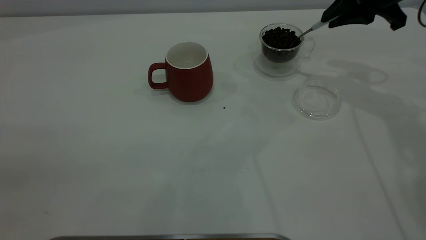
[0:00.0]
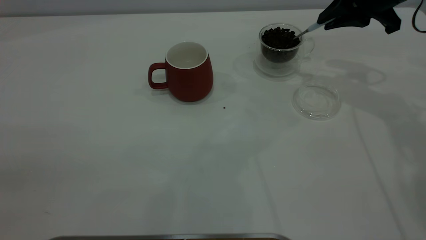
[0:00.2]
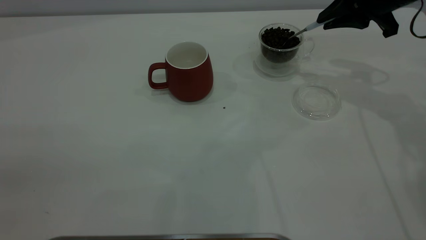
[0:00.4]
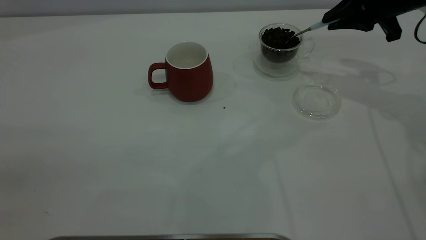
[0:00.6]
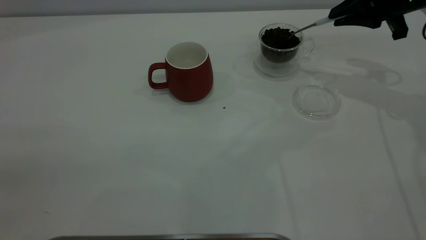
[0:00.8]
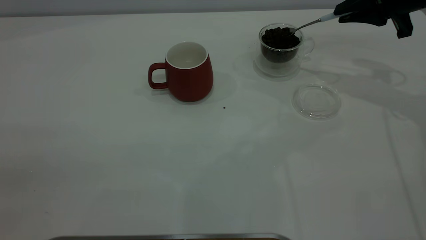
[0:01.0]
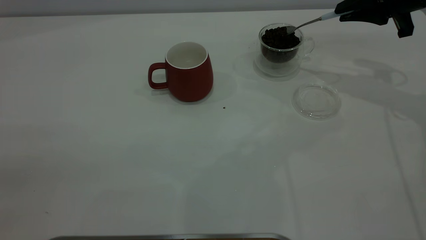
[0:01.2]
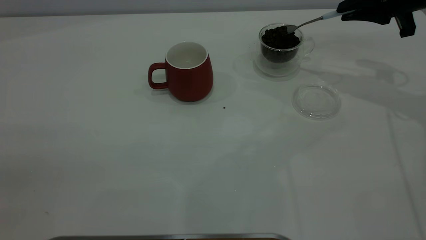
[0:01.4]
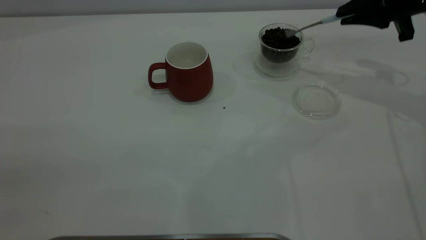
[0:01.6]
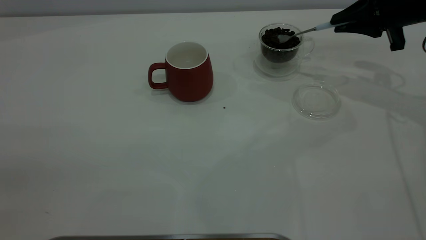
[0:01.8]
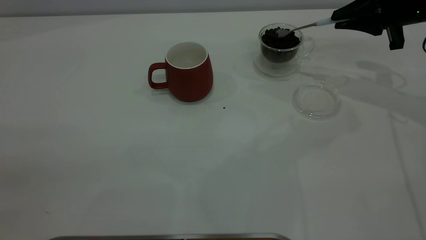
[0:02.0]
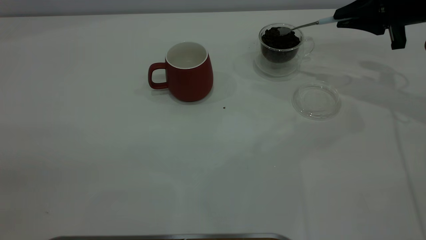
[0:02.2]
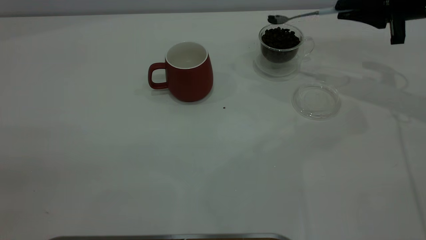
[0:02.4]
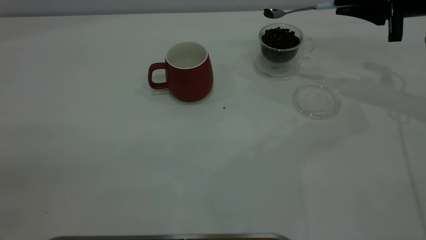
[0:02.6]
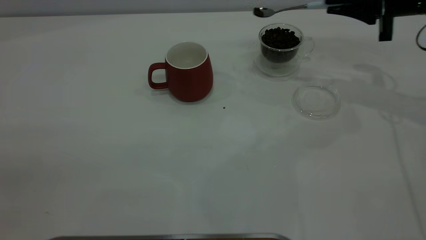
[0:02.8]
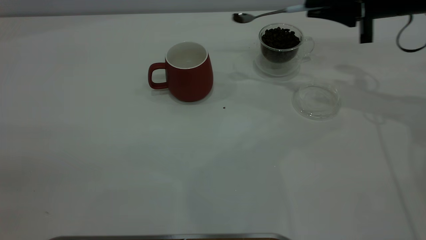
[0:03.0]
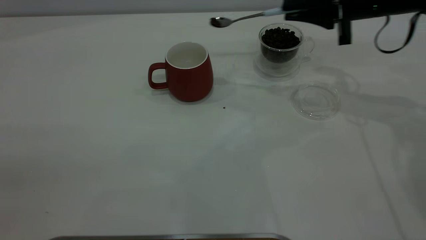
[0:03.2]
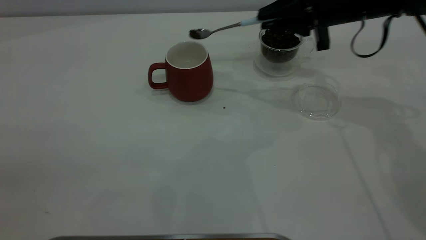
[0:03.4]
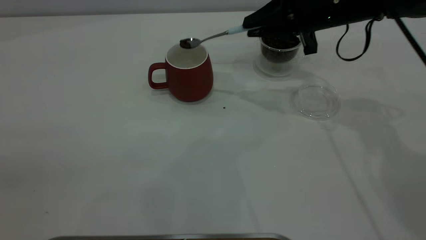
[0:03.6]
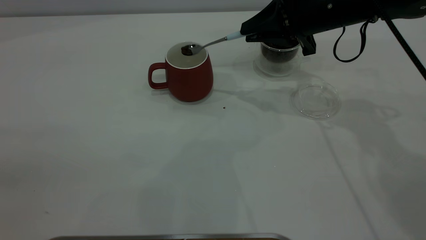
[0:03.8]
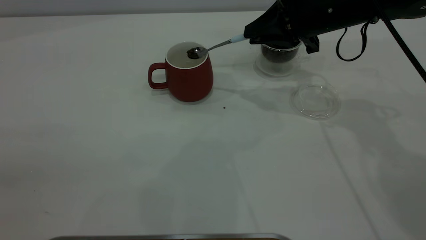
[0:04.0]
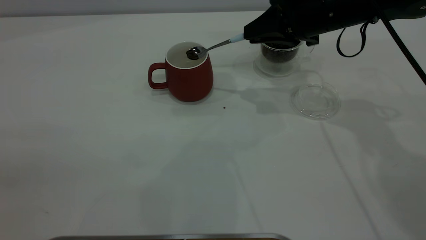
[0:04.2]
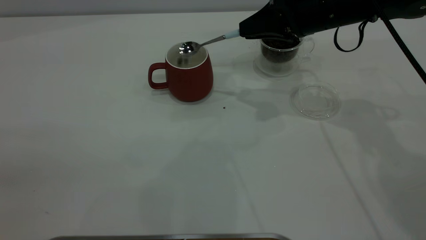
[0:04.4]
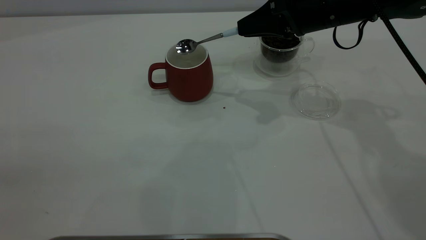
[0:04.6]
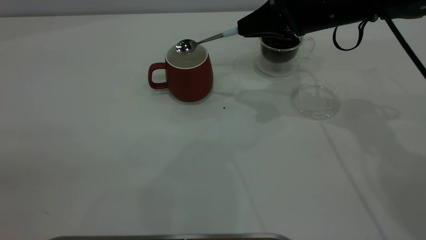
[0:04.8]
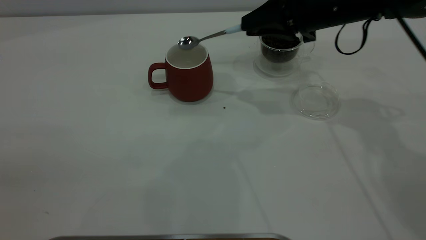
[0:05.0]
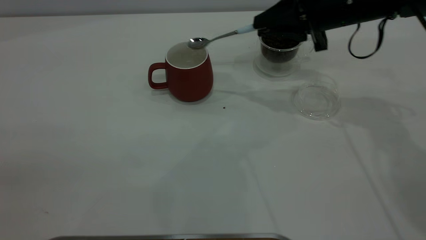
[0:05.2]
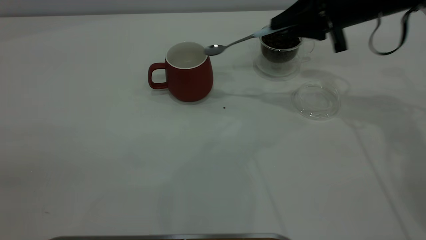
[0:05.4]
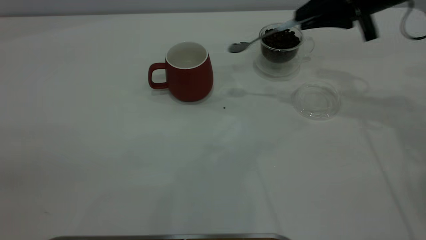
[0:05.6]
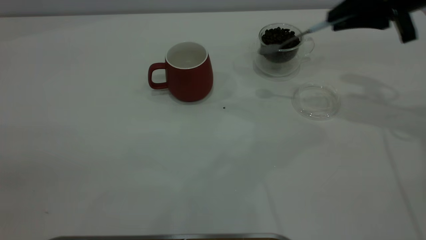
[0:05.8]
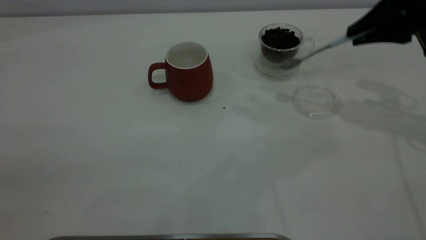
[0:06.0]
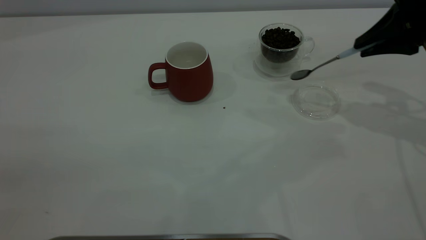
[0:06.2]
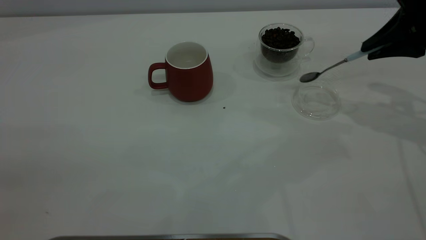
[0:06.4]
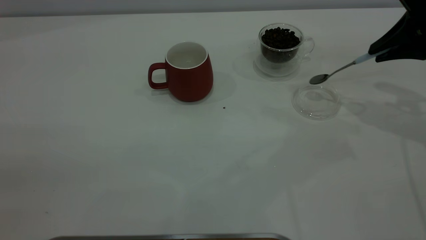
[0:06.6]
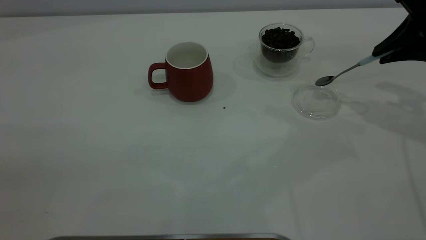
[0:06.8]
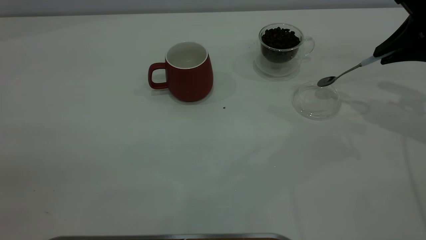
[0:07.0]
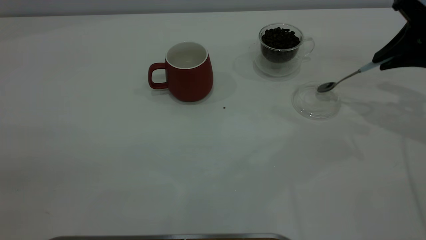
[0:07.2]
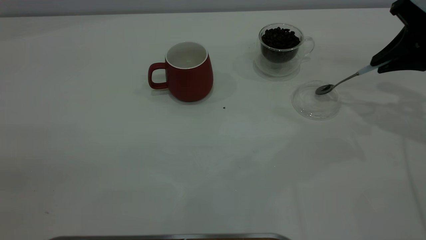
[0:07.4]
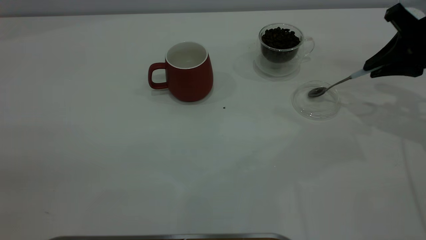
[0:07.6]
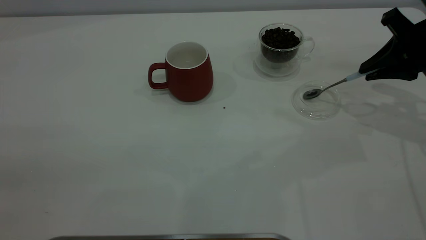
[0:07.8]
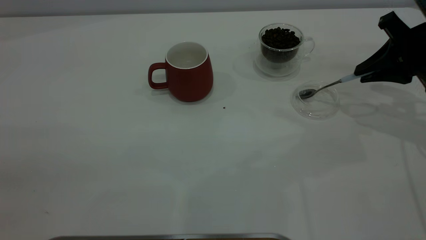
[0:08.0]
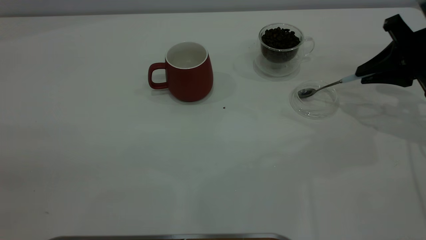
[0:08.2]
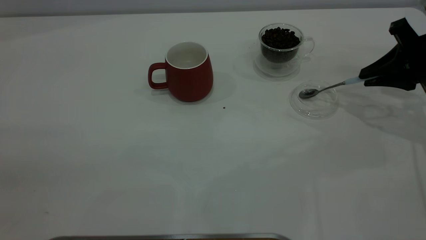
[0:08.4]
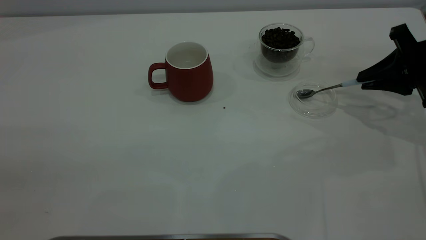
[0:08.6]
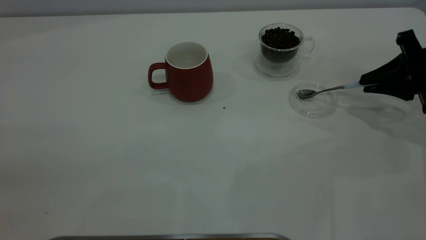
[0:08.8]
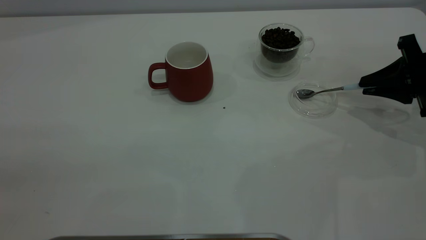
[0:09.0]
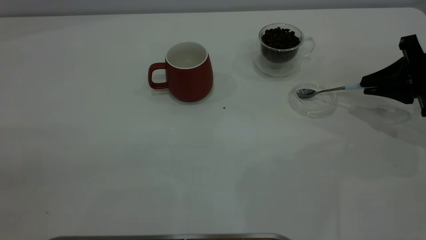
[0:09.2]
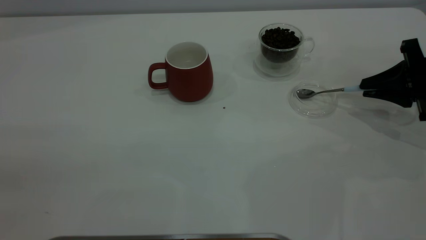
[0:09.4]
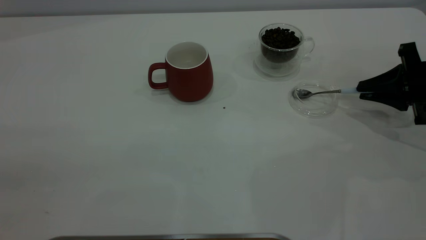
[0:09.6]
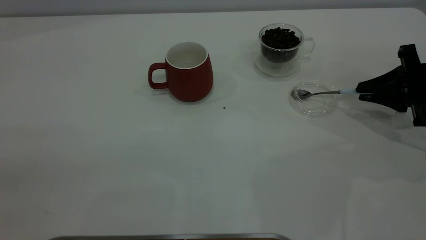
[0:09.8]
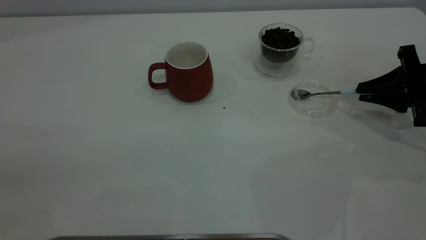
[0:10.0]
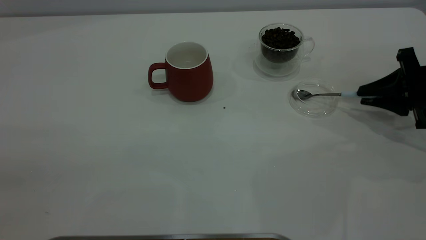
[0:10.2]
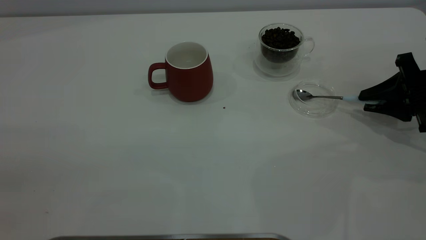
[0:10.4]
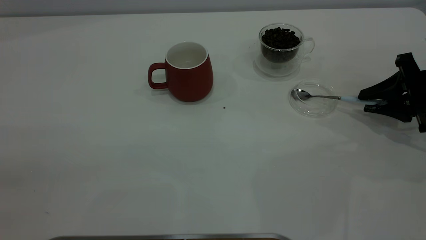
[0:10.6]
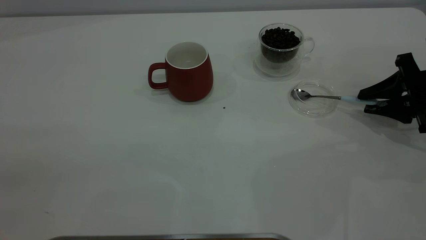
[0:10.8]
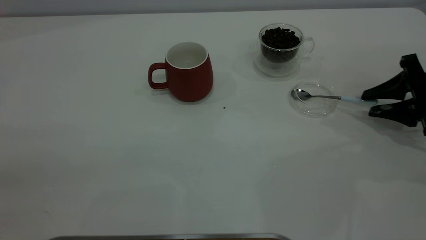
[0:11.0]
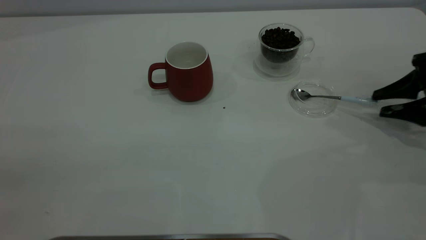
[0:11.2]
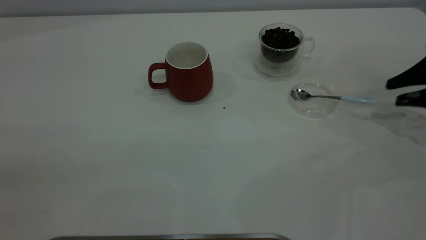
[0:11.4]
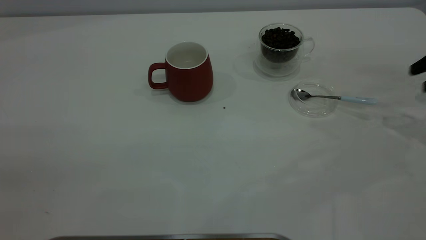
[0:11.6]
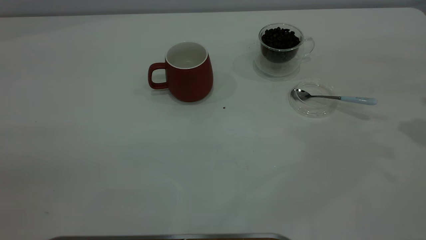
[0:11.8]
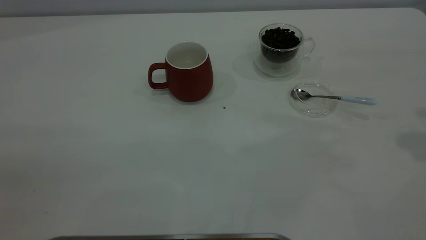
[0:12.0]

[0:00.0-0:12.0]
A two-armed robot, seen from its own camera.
Task of the whole recording: the left gripper place the red cup in the center of the table, the right gripper take the blue spoon from the cup lid and scoop out the coffee beans from the coffee cup and put them into the red cup, the right gripper put the spoon back into the cup lid.
Step, 0:00.0 to 0:05.0: Scoop a spoonful of beans into the cup.
Step, 0:05.2 to 0:11.2: Place the spoon back in its original place.
0:00.0 to 0:01.6: The right gripper travels to the right by about 5 cm.
0:01.6 to 0:03.0: There are only small adjustments of the grippers.
0:03.0 to 0:04.4: The right gripper shifts about 10 cm to the left.
0:04.4 to 0:06.0: The right gripper moves to the right and backward, about 15 cm.
0:06.0 to 0:07.6: The right gripper ends up roughly 5 cm from where it was.
0:07.6 to 0:09.0: The right gripper moves downward, roughly 5 cm.
0:09.0 to 0:10.4: The grippers make only small movements.
0:10.4 to 0:12.0: The right gripper travels upward by roughly 30 cm.

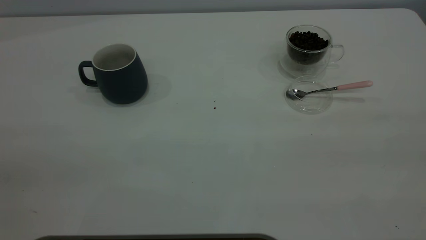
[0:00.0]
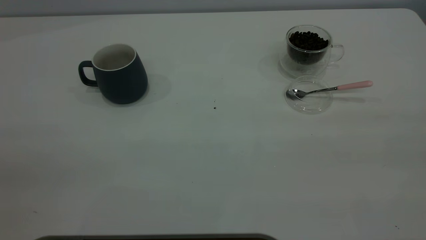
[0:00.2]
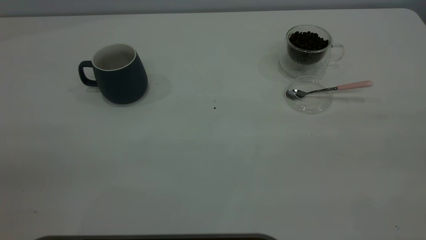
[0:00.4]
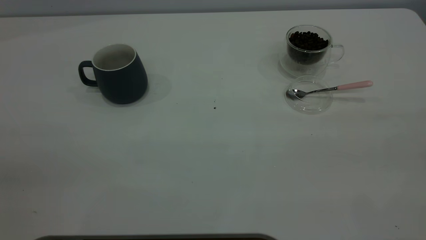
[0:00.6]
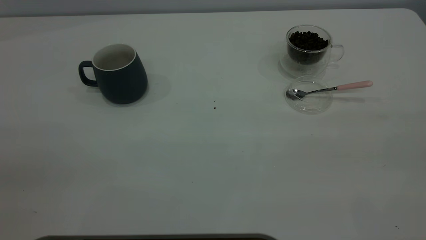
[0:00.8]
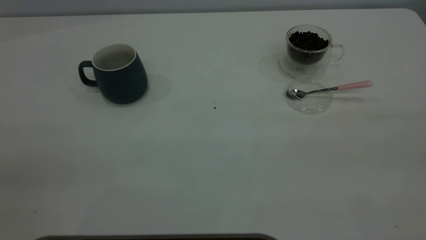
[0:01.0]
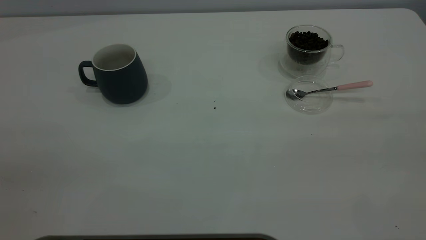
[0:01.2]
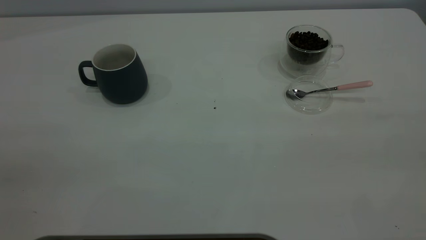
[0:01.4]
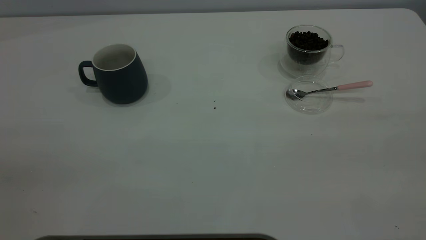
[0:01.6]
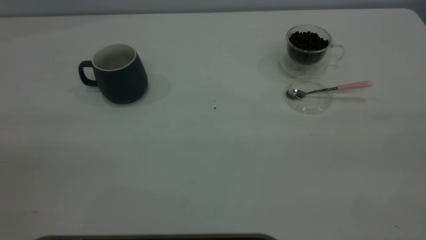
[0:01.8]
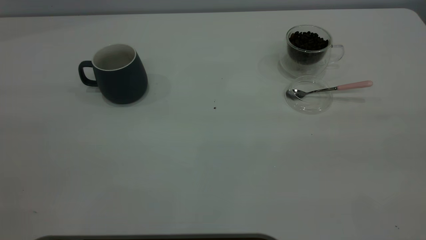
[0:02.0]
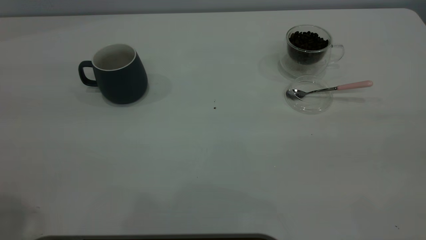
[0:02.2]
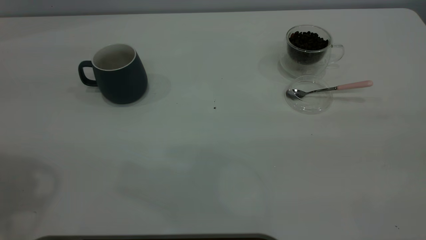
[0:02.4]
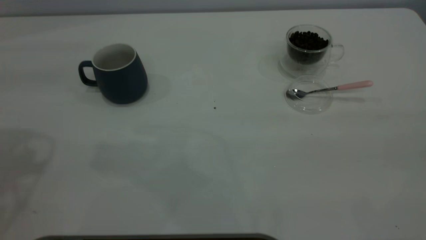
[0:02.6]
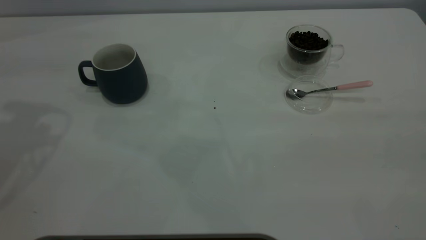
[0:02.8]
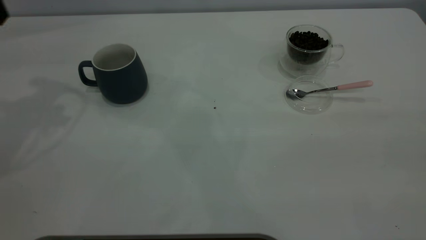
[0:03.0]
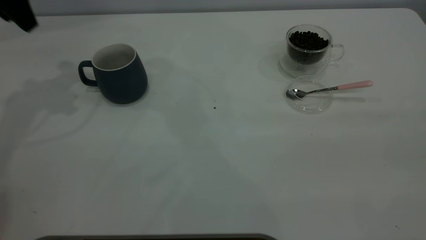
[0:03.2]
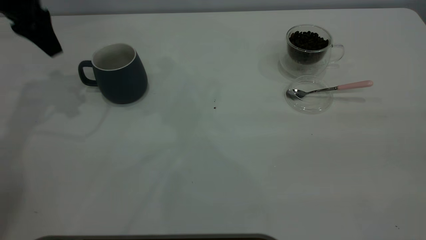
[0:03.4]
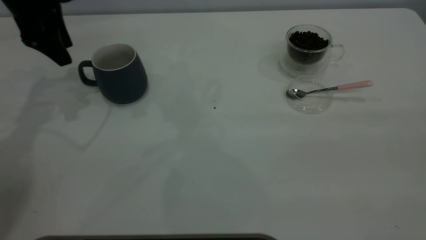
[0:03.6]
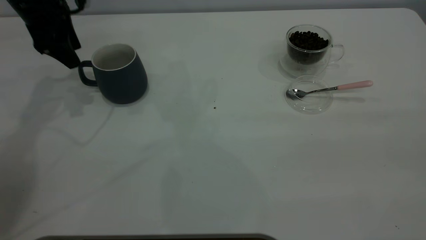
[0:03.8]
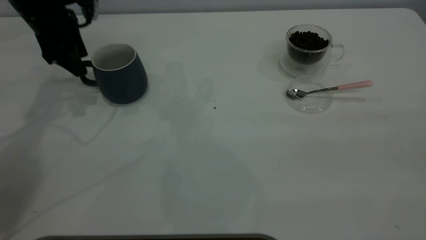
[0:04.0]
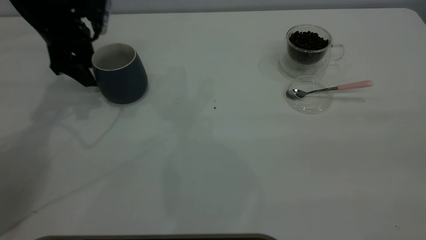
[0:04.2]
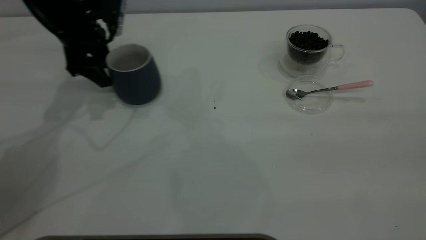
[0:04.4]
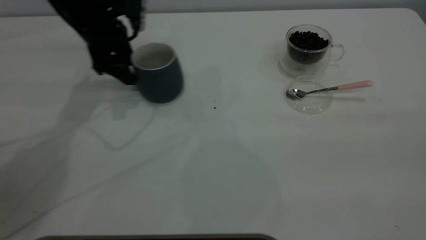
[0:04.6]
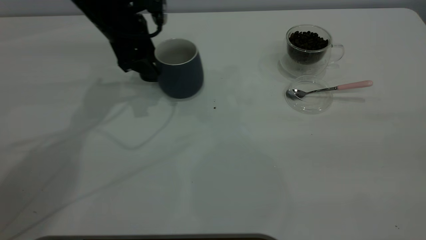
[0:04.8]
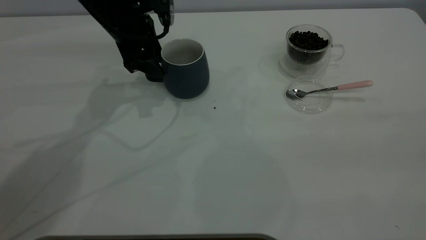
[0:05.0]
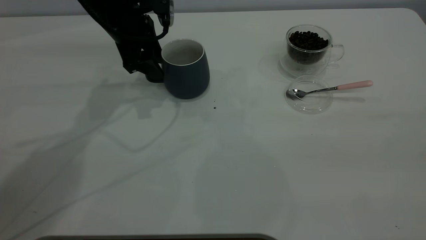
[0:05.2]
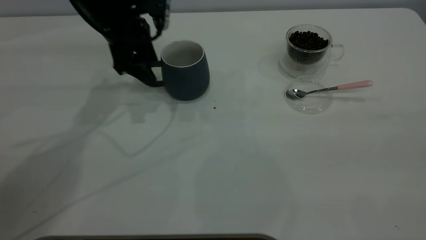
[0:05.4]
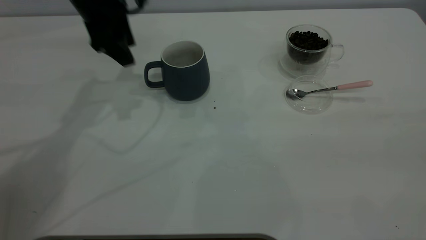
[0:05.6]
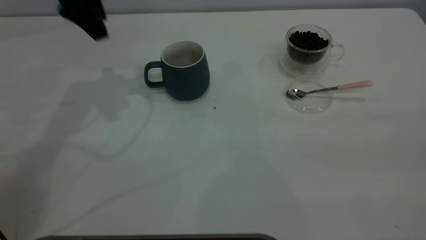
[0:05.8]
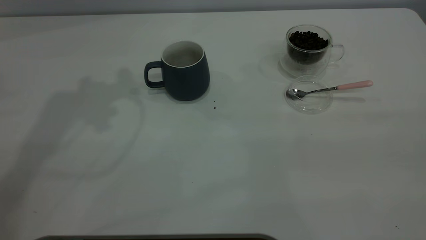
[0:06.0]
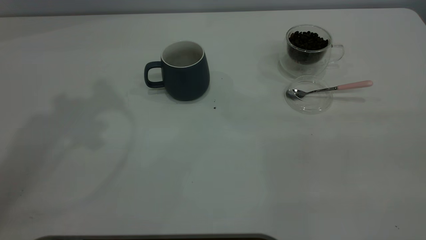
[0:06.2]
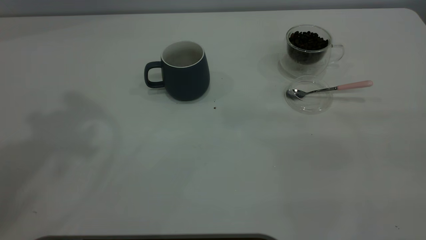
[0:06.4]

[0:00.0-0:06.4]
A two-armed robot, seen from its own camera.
Task of the whole recording: the left gripper place the grey cup in the center of the table, the right gripper take the pink spoon from the cup lid and scoop out the coffee beans from the coffee cup and put them into the grey cup, the right gripper put the spoon back into the cup lid.
Step, 0:00.0 to 0:05.4: Move the cup to the center of view.
0:01.6 to 0:03.2: The left gripper travels forward by some 40 cm.
0:03.2 to 0:04.8: The left gripper heads to the right and downward, covering some 20 cm.
0:04.8 to 0:06.4: The left gripper shifts approximately 40 cm upward and backward.
